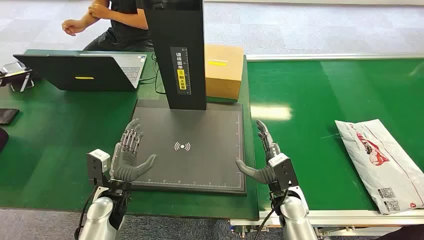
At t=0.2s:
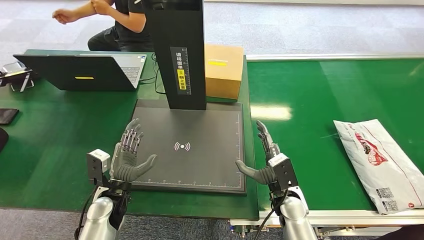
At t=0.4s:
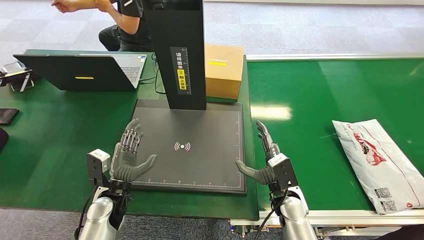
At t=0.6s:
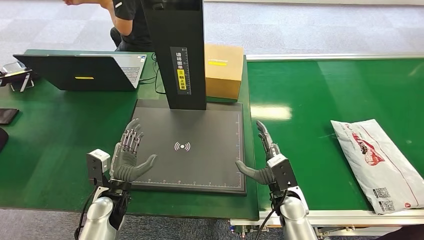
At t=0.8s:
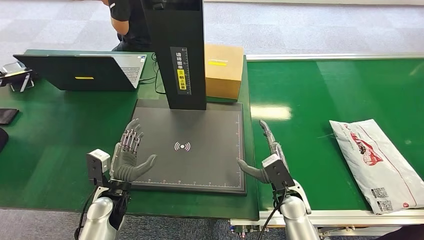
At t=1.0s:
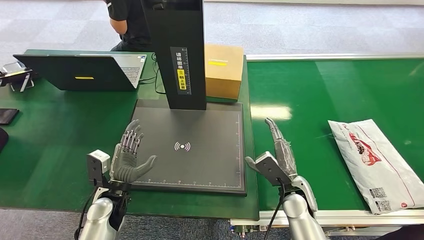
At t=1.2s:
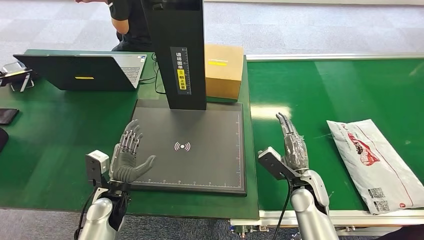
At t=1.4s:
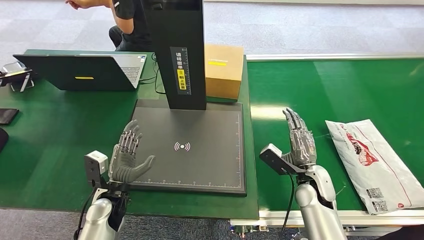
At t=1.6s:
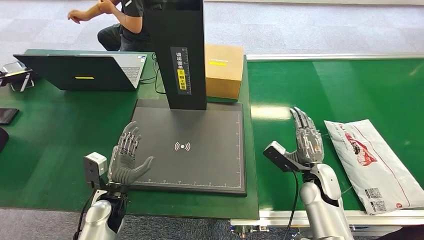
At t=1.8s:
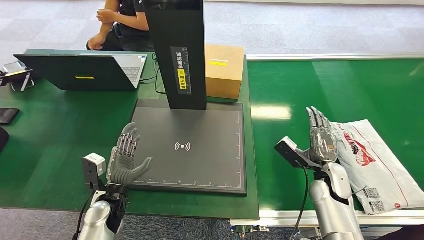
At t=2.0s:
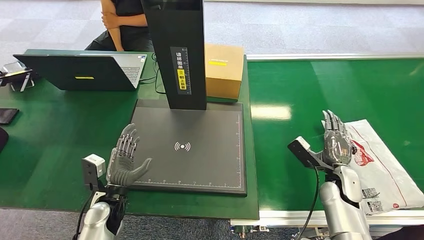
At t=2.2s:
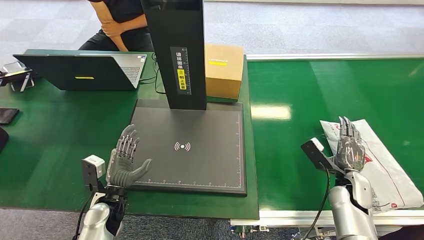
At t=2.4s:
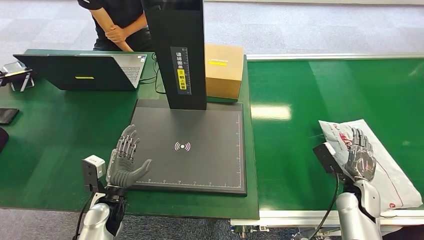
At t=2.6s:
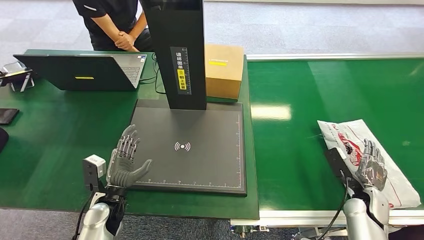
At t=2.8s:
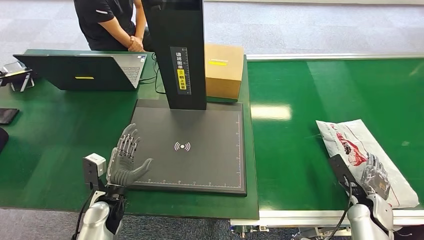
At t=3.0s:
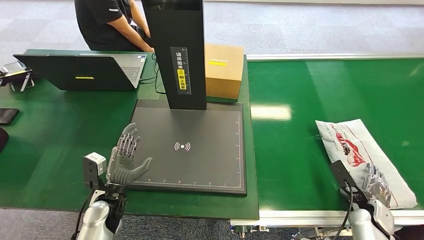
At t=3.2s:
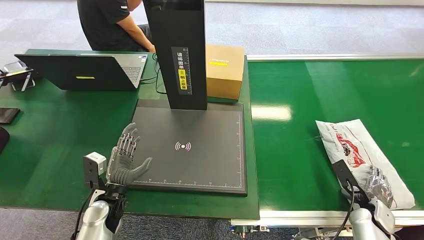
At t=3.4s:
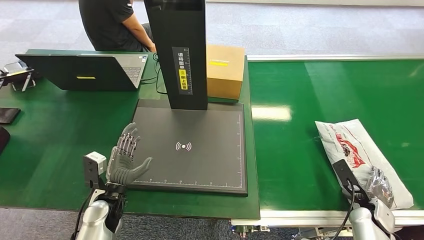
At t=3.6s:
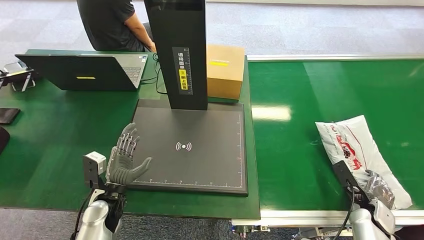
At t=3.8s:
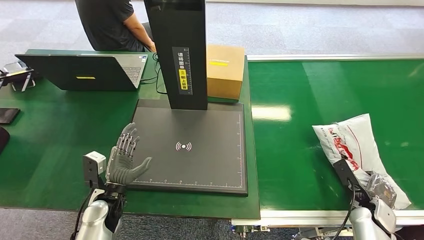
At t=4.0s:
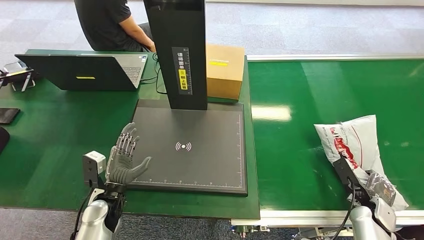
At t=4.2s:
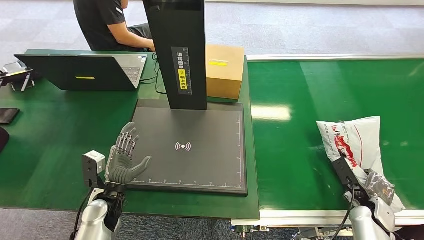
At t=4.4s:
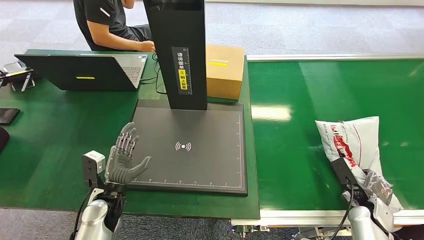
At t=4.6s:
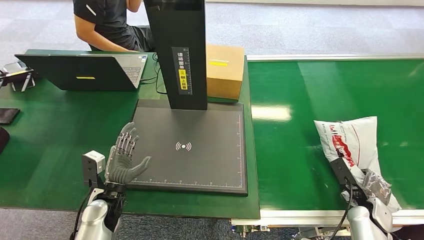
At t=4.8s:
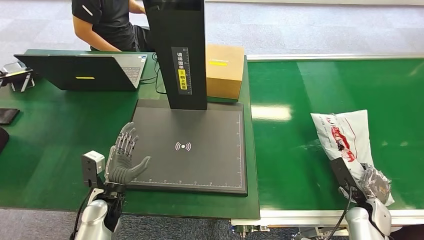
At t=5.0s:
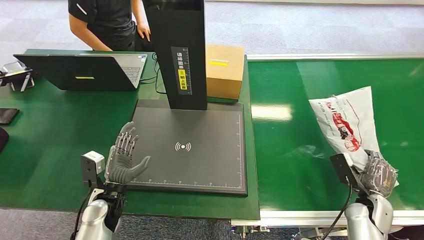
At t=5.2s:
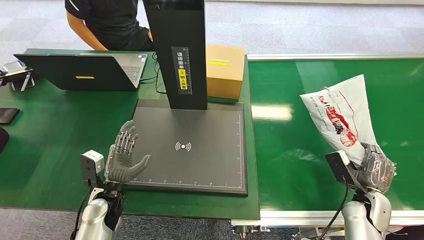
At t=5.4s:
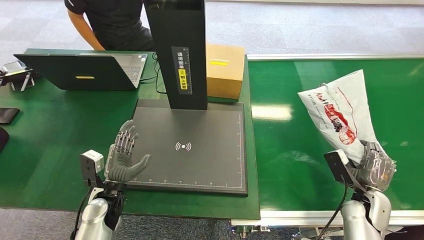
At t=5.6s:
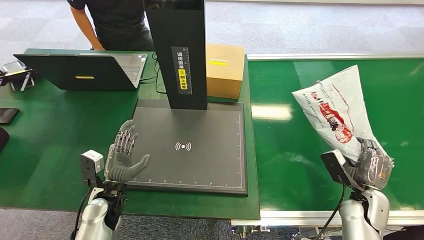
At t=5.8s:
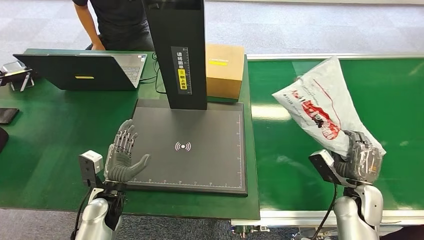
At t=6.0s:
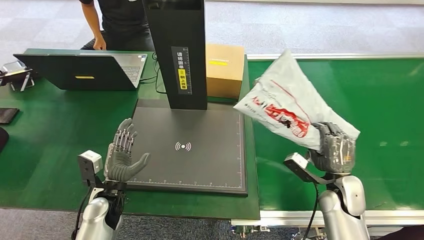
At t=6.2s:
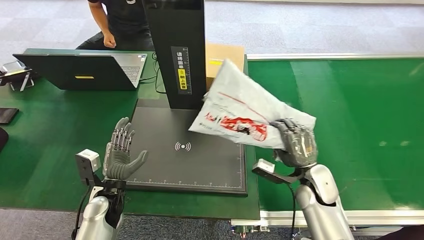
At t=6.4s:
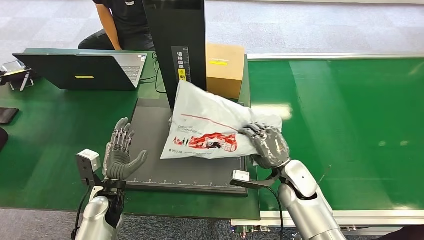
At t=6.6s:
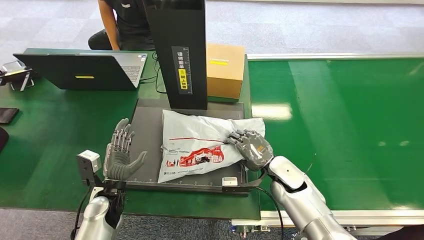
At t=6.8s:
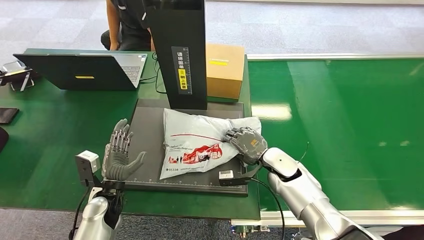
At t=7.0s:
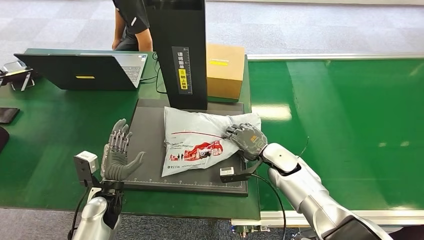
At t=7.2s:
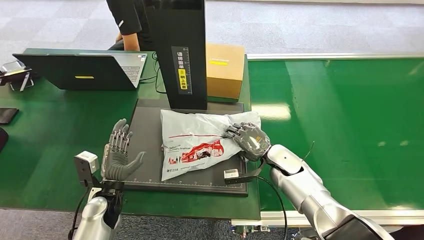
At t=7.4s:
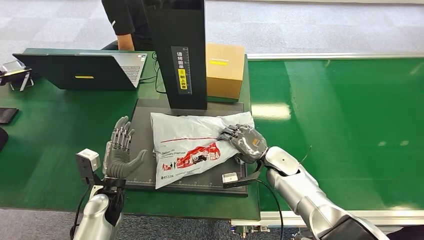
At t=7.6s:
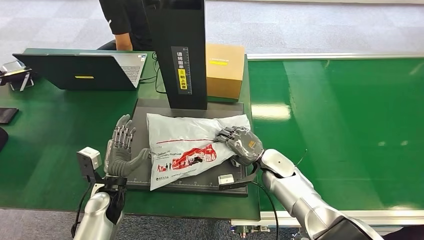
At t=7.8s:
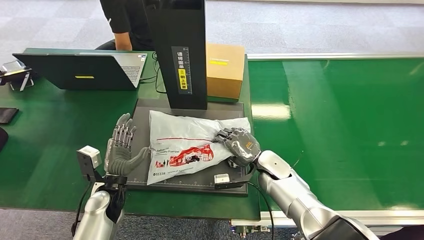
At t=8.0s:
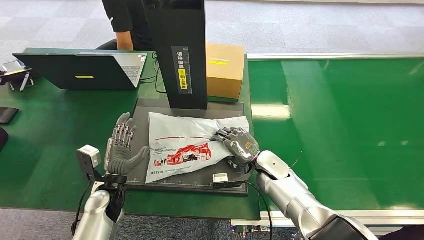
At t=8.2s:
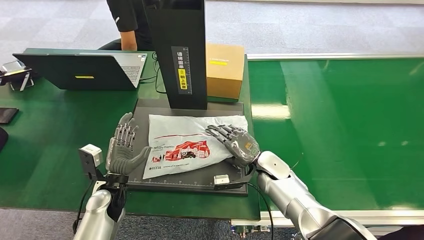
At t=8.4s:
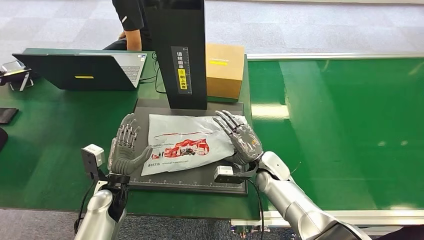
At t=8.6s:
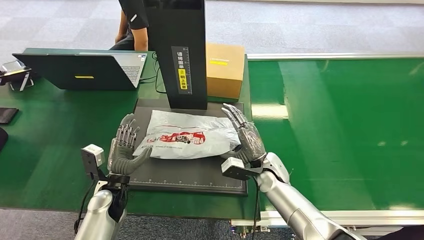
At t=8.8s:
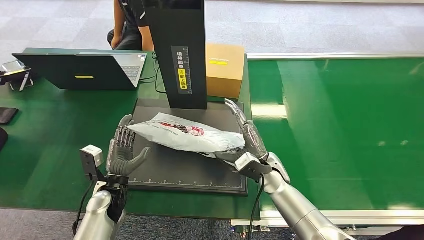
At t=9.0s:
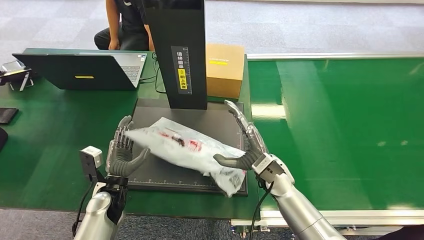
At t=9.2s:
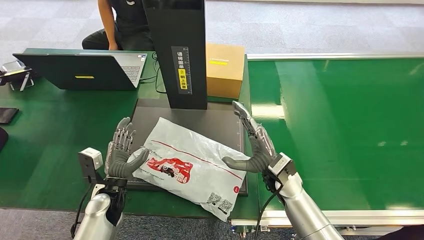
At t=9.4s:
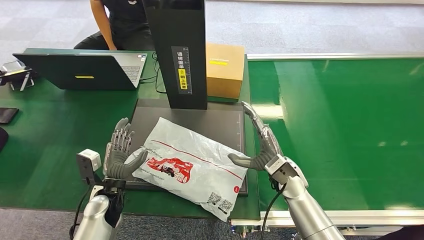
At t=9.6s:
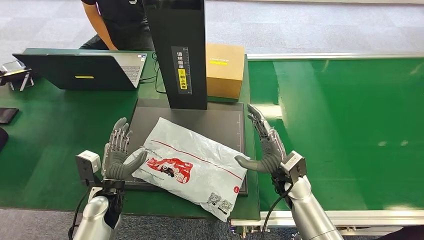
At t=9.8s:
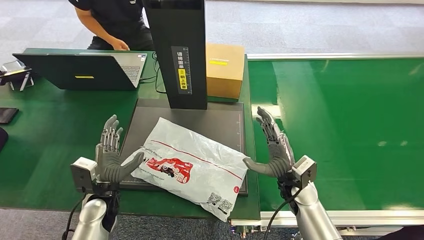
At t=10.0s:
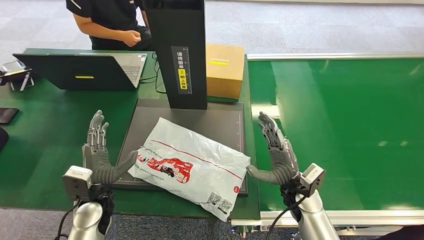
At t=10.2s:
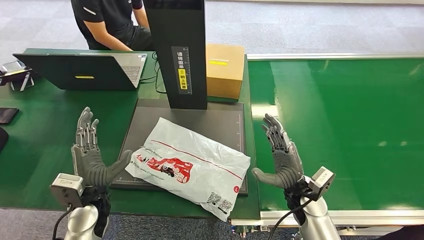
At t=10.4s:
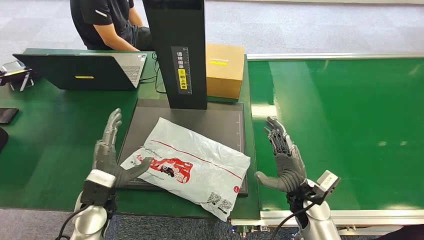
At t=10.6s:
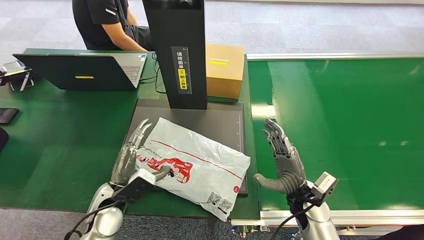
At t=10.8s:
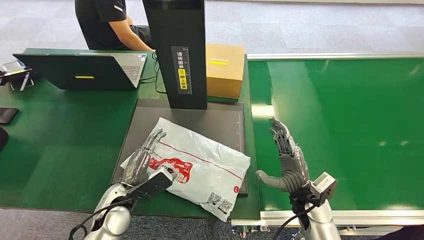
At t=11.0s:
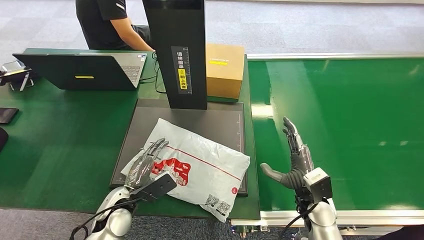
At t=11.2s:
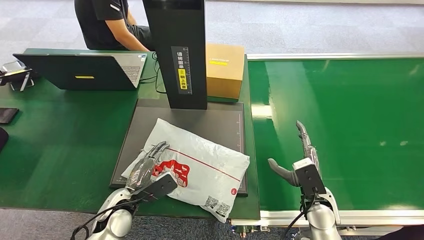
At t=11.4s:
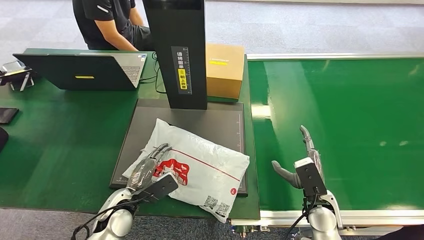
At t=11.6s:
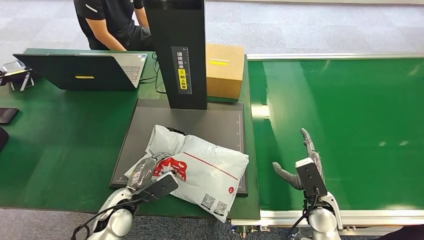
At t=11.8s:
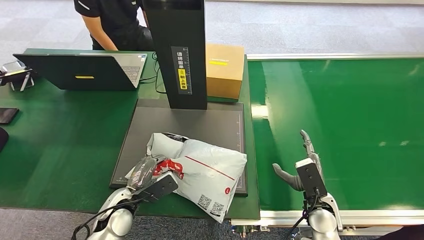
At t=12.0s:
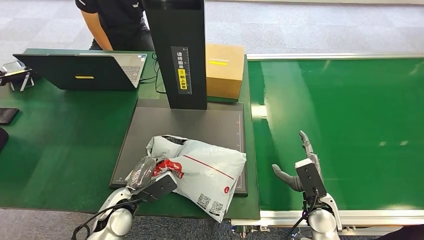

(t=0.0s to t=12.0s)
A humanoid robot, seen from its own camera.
Task of the whole recording: Weigh the package on the weighing device and place it in the left basket.
Step, t=0.0s - t=5.6s: Pick up the package from the conveyor belt.
Step, t=5.8s - t=9.2s: Place the package onto the inbound machine.
t=1.6s - t=3.0s: The right hand moves to the right, downward and backward, about 20 cm.
t=3.0s - t=4.4s: The hands make only small movements.
t=7.6s - t=9.0s: The right hand shifts by roughly 5 cm.
t=9.0s - t=10.4s: The left hand moves upward, some 5 cm, while the right hand heads to the right and backward, covering roughly 10 cm.
t=10.4s - t=12.0s: The left hand travels downward by about 5 cm, while the right hand moves roughly 5 cm.

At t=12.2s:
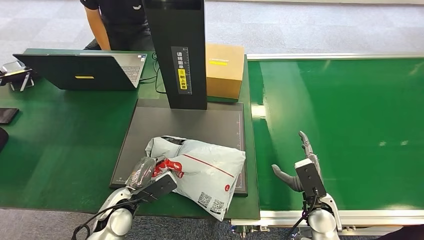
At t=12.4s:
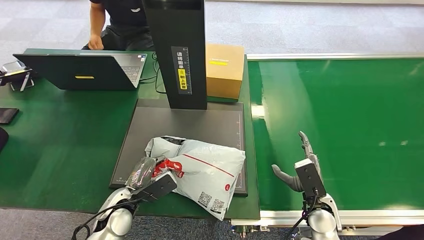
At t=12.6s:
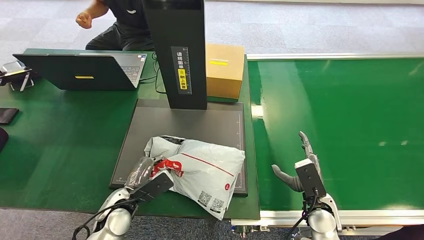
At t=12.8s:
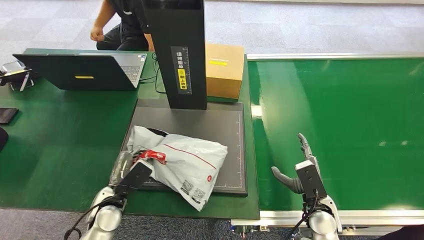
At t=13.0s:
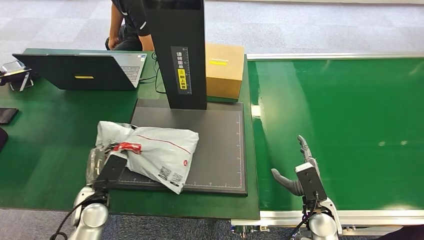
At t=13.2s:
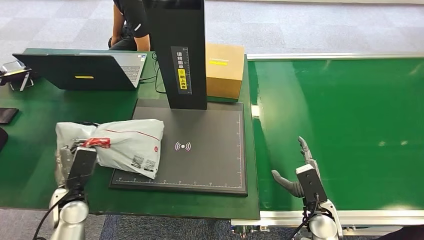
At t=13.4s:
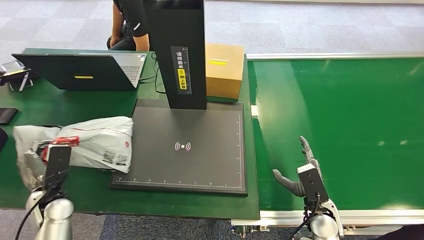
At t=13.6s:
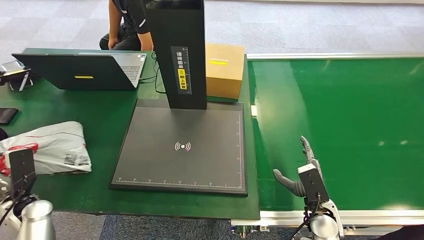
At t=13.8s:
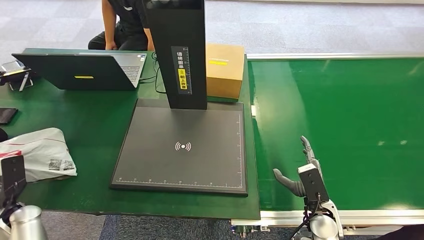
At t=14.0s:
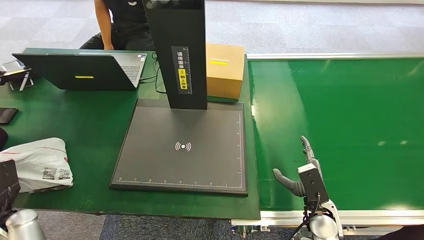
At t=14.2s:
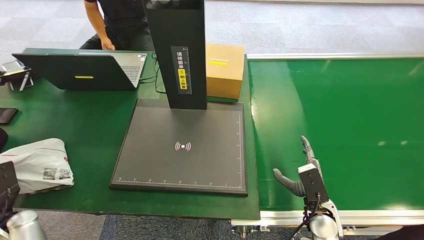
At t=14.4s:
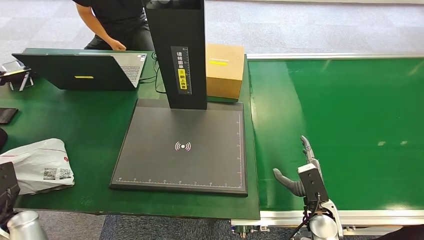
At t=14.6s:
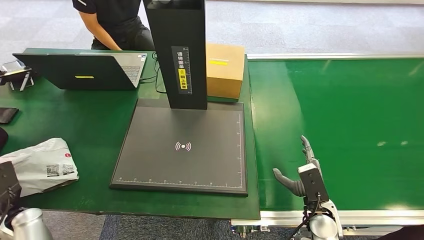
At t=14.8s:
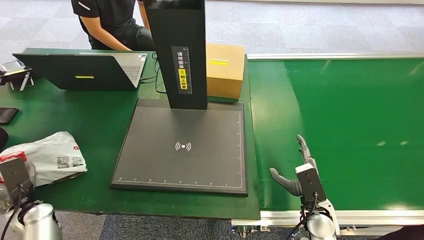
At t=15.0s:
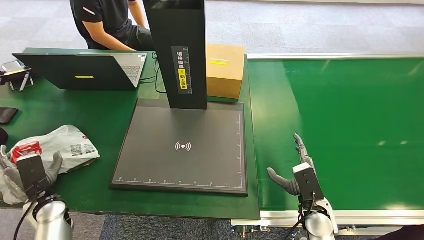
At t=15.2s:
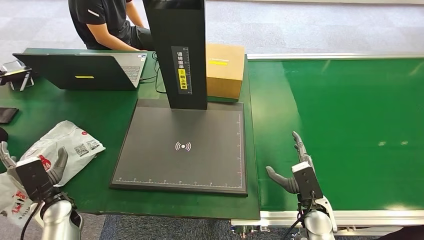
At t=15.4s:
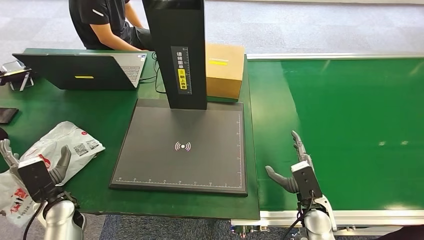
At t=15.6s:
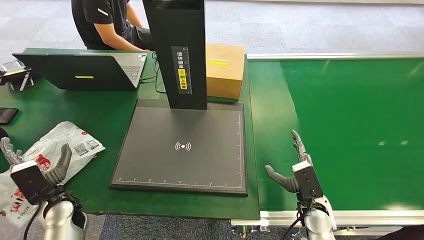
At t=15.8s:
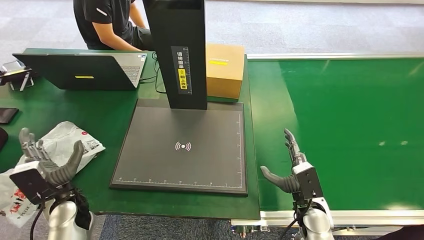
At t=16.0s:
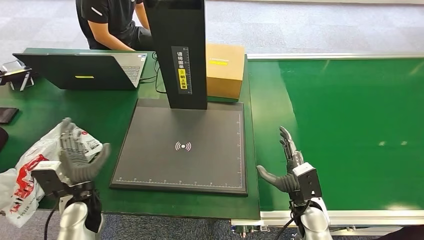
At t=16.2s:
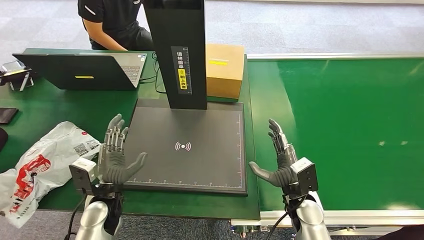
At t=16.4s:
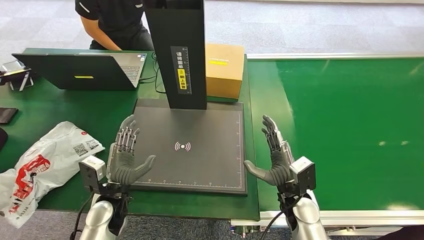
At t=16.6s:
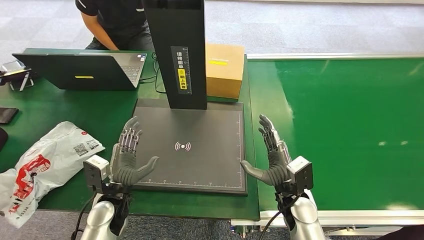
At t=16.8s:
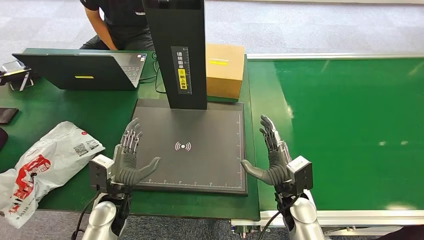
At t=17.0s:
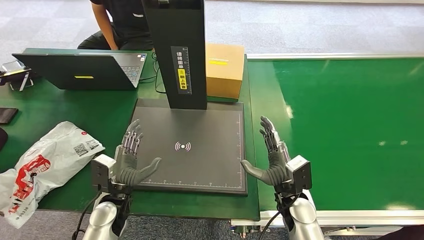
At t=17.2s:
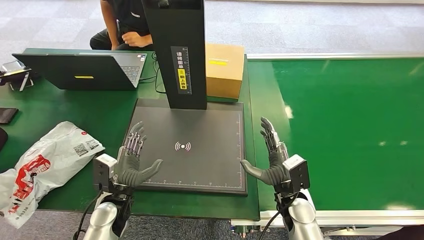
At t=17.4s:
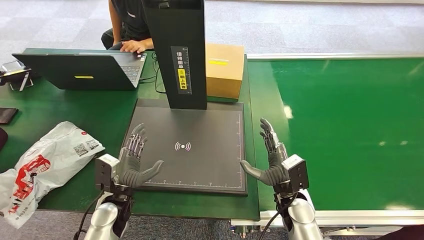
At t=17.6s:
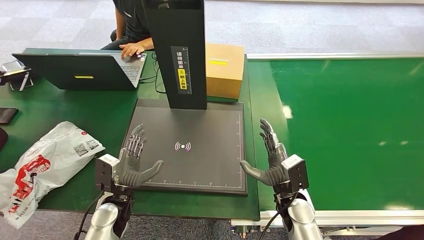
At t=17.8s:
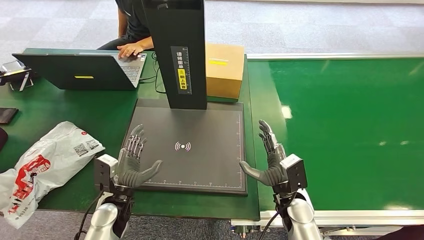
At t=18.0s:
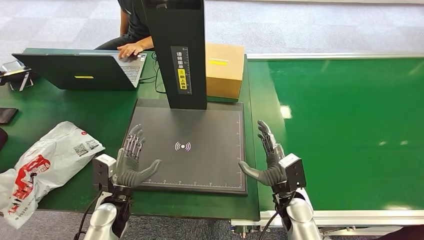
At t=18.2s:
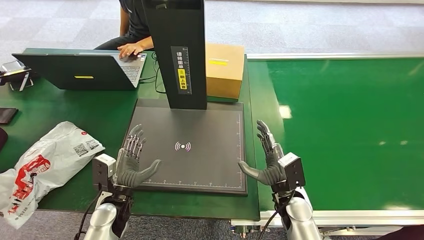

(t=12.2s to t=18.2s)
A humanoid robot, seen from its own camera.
Task of the whole recording: Weigh the package on the weighing device and place it in the left basket.
Step, t=13.4s - t=18.2s: Place the package into the parcel locker.
t=12.2s - t=13.8s: The left hand shifts approximately 25 cm to the left.
t=13.8s - t=15.2s: The left hand goes approximately 10 cm to the right.
t=15.2s - t=16.6s: The right hand moves to the left, roughly 5 cm, while the left hand travels to the right by roughly 15 cm.
t=16.6s - t=18.2s: The hands move only a little.
